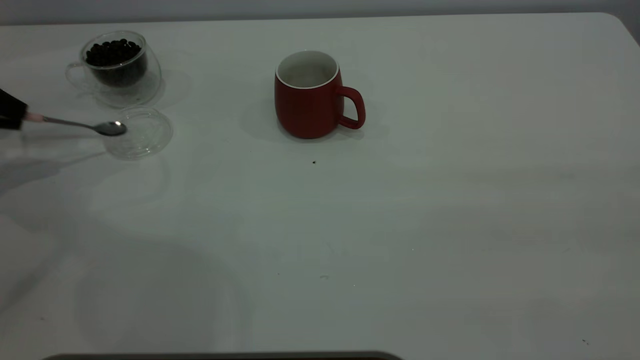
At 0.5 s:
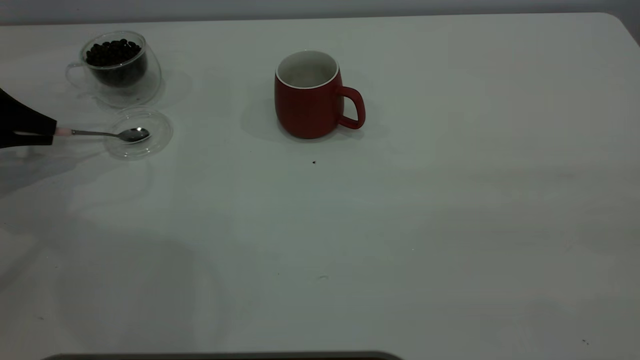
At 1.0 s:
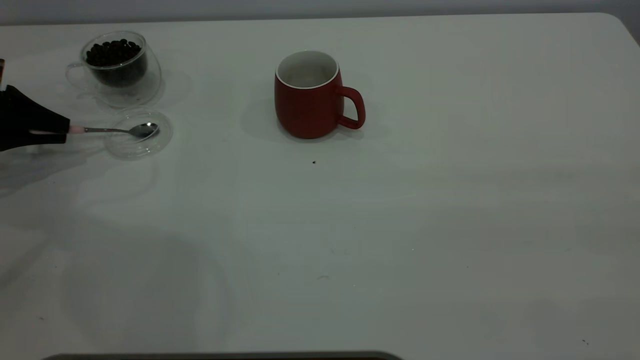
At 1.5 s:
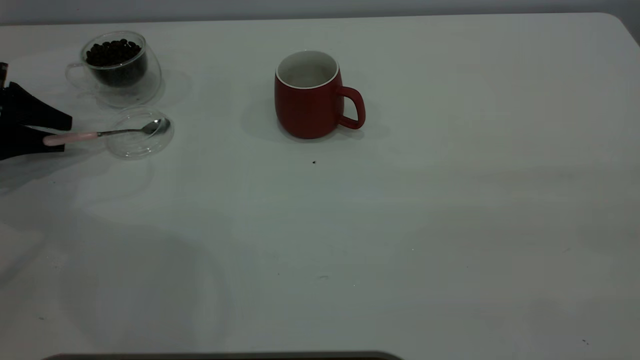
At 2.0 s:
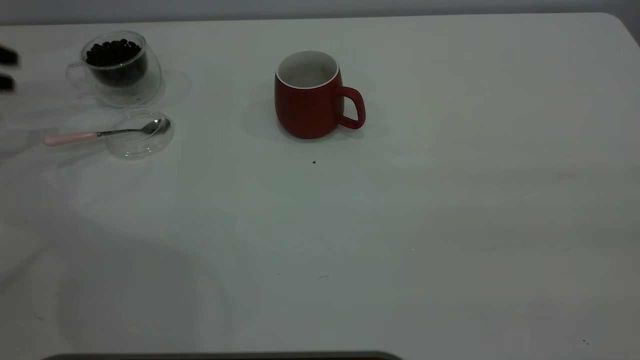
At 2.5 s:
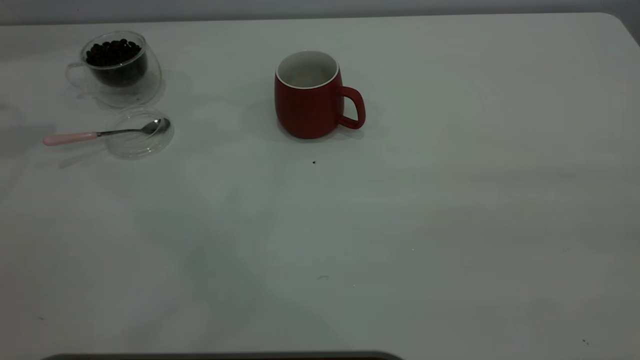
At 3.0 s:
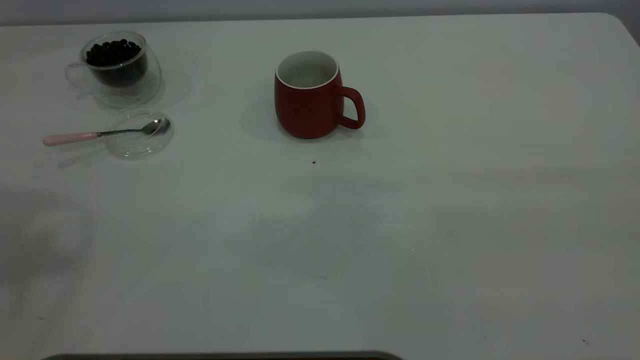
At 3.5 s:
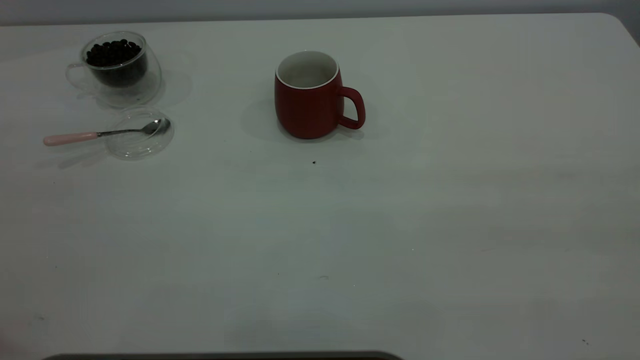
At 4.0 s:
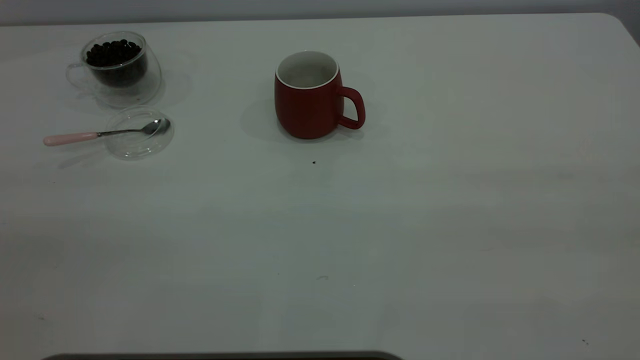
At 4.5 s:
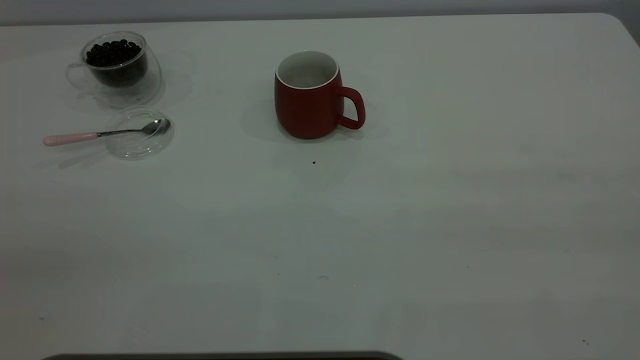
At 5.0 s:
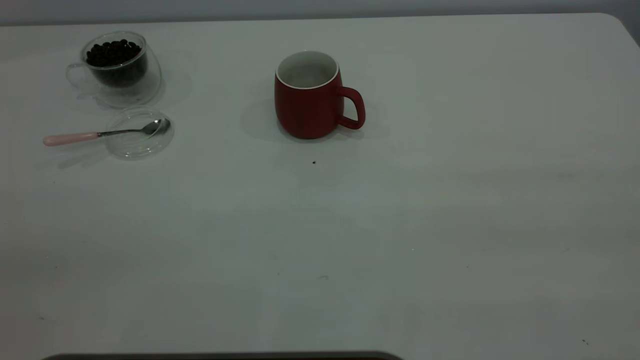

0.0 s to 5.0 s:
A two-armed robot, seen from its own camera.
Task of the whole recording: the right gripper place the red cup in the center of the table, the left gripper take the pink spoon from the cup lid and scoop out the coffee beans from the coffee cup and put them into the red cup, the left gripper put the spoon back into the cup lid.
0.0 to 2.5 s: The left gripper heads upward, covering roughly 25 cm, and opens up.

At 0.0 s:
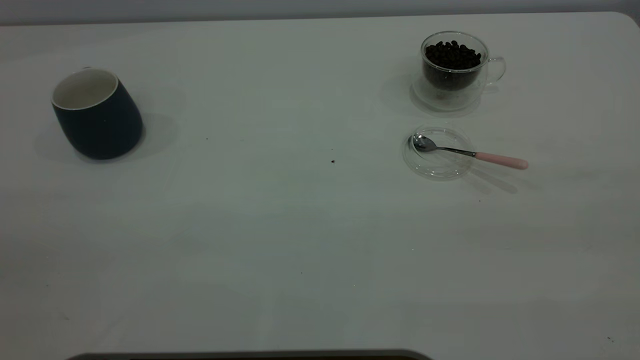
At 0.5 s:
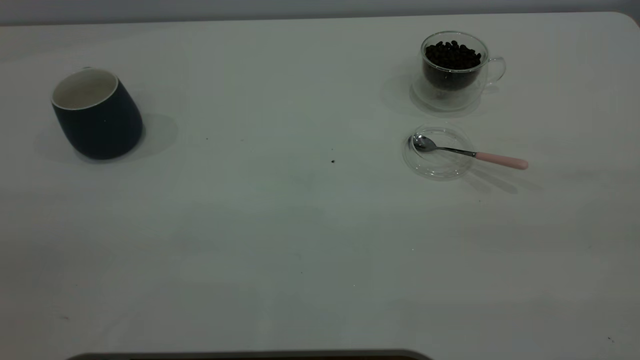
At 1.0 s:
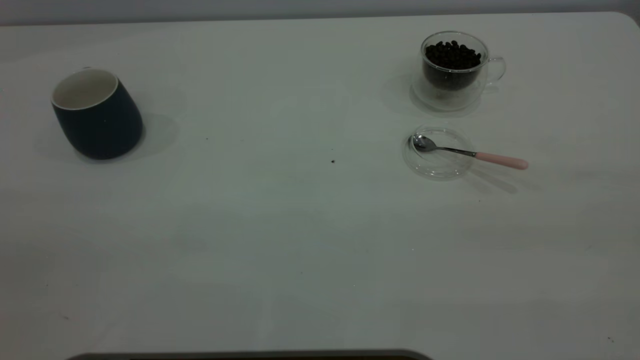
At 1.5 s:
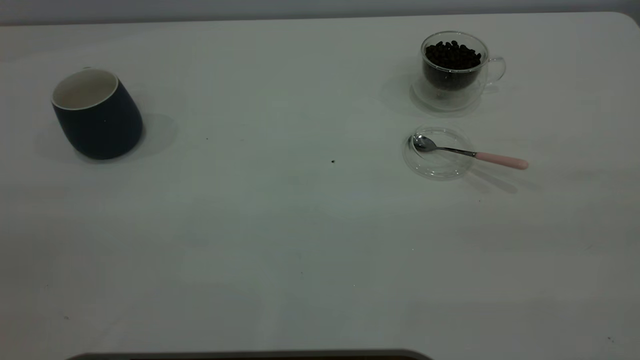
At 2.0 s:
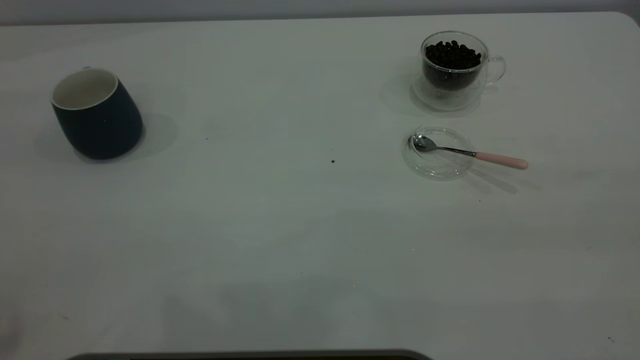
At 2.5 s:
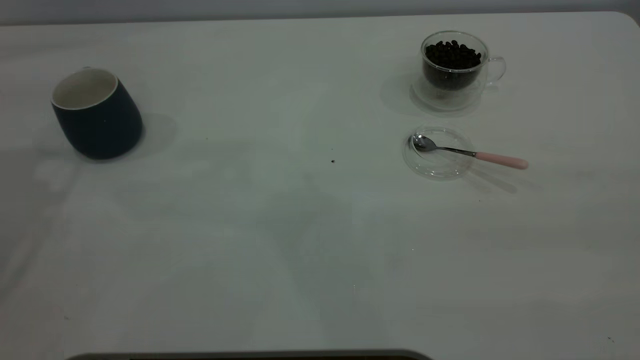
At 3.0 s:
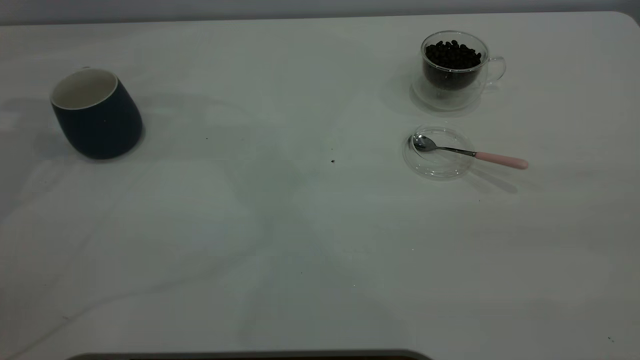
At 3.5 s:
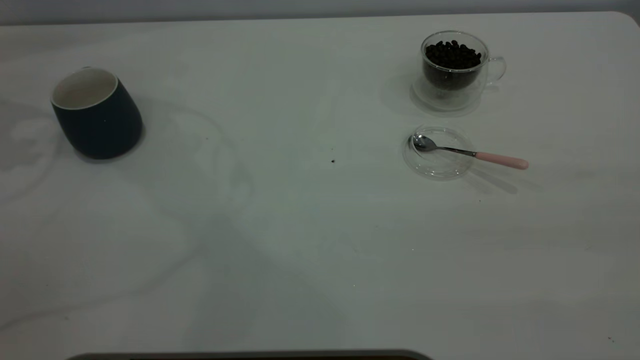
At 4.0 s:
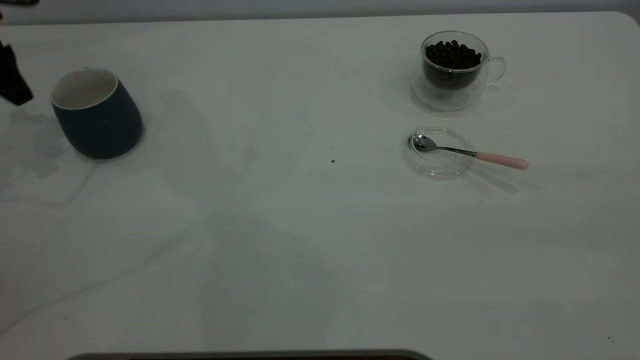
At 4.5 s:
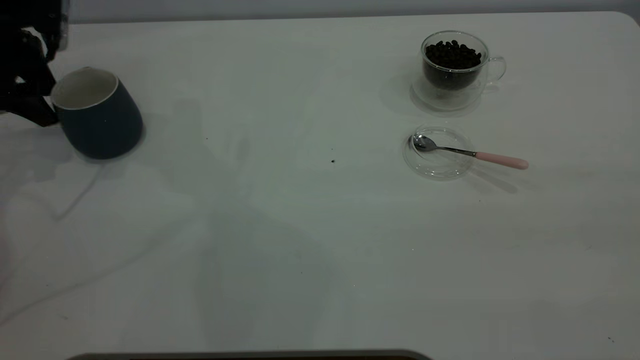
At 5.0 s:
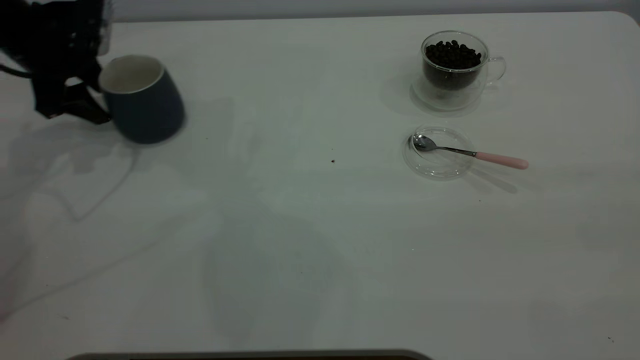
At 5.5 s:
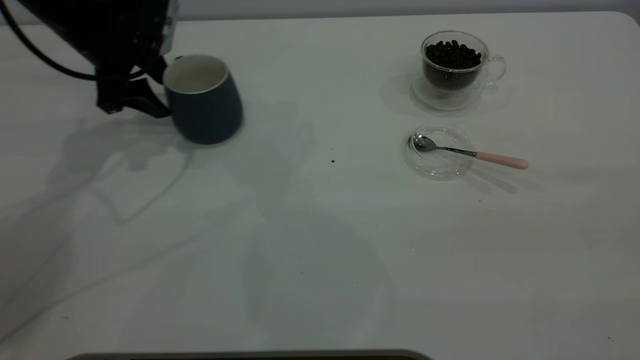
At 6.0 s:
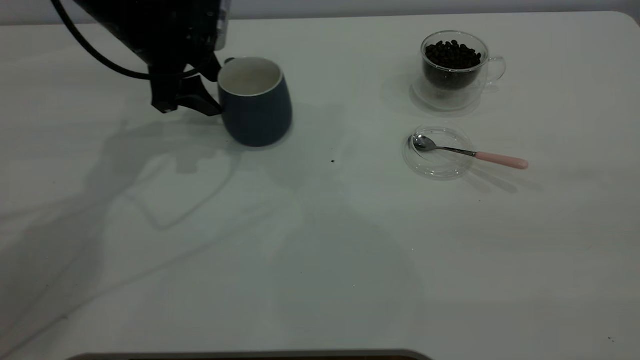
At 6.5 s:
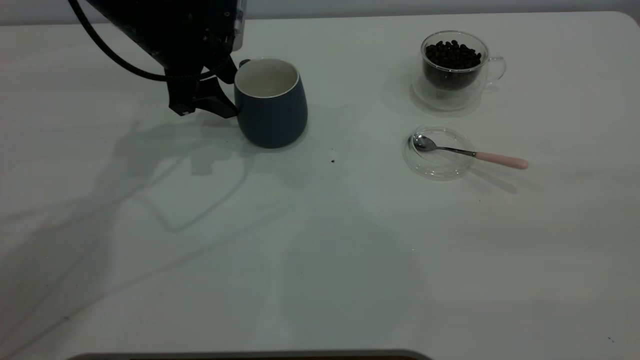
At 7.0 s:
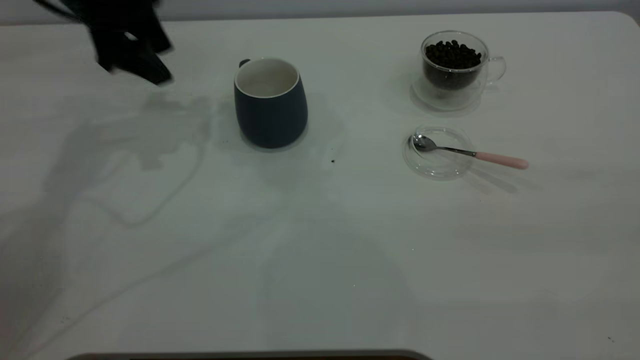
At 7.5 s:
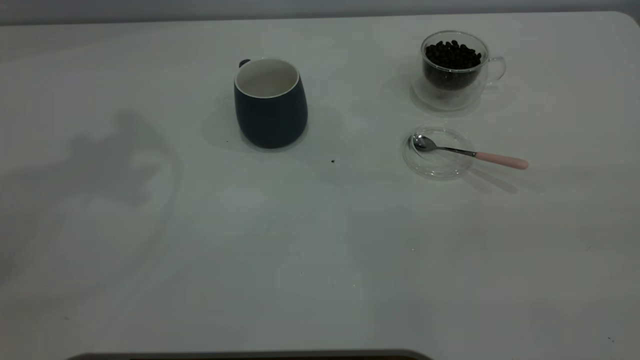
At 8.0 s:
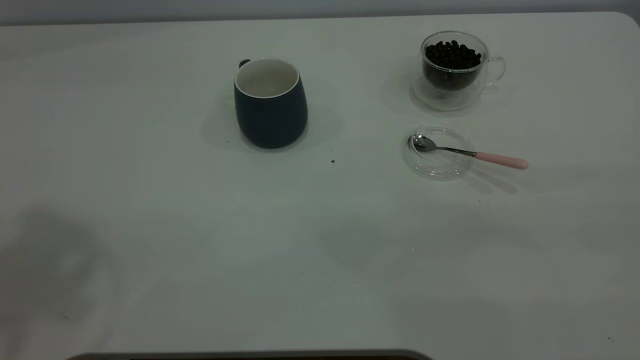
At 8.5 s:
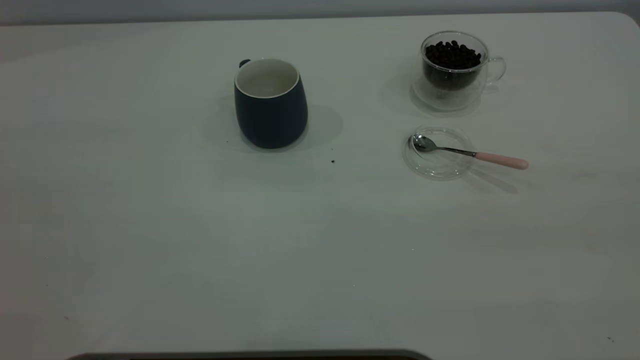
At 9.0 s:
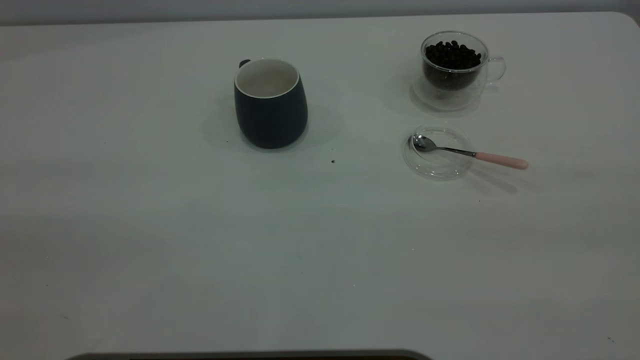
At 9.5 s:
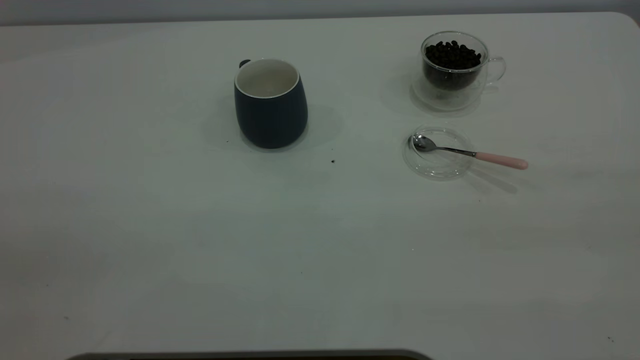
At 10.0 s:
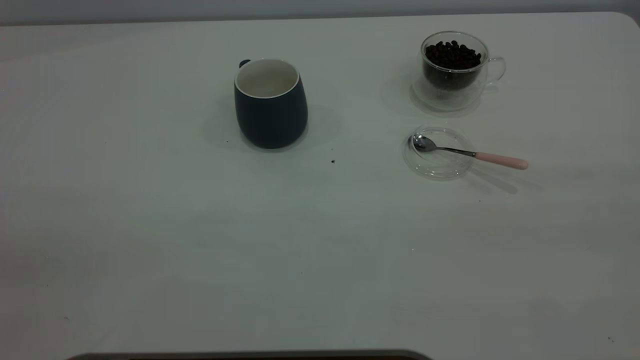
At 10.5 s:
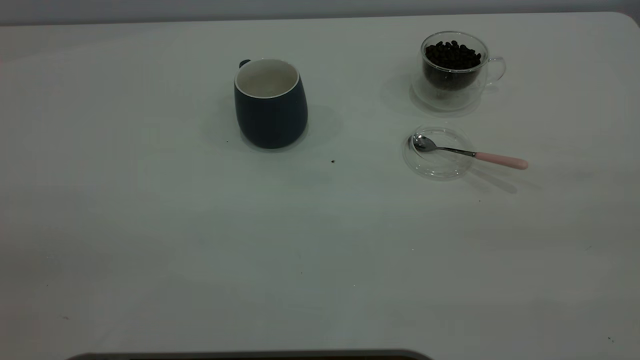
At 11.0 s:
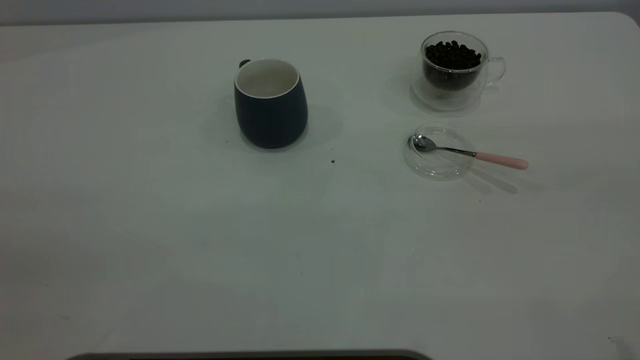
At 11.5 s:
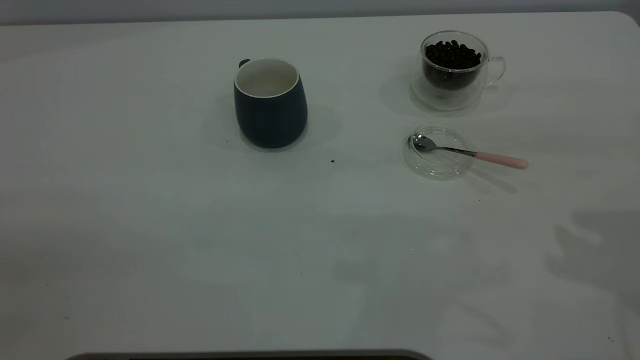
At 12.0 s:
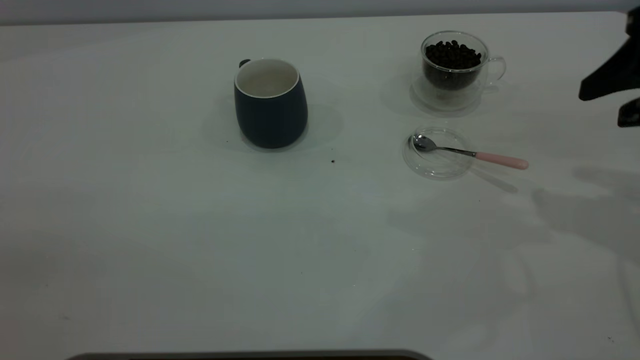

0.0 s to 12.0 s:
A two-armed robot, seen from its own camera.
Task of the whole recording: the left gripper place the grey cup in the center of the table, the right gripper take the pink spoon from the cup lid and scoop out the coffee beans from the coffee cup and put them into the grey cup, the right gripper put the spoon back into the cup lid.
Step, 0.0 to 6.5 s: Move the cup to the center of view.
2.0 to 4.0 s: The left gripper heads forward and downward, covering about 35 cm.
4.0 to 6.0 s: The left gripper moves to the right, some 20 cm.
6.0 to 8.0 s: The left gripper goes roughly 40 cm upward and backward.
10.0 to 12.0 s: The right gripper shifts roughly 30 cm forward and downward.

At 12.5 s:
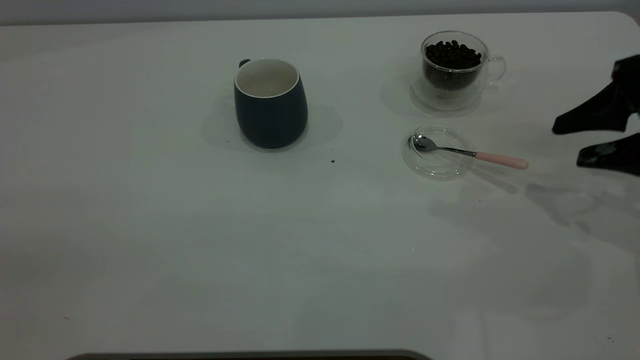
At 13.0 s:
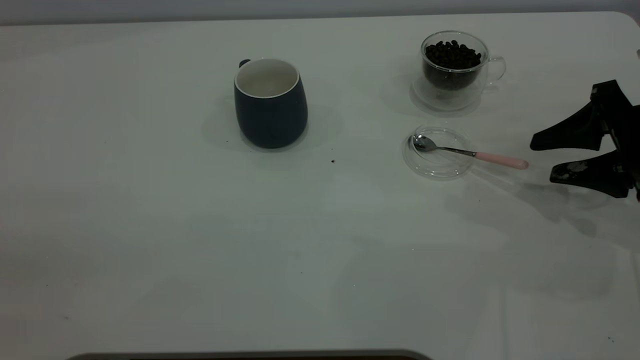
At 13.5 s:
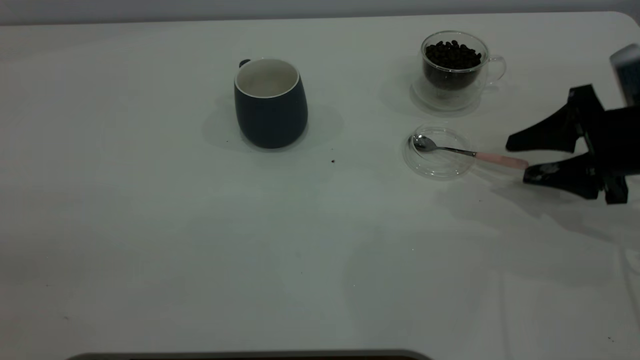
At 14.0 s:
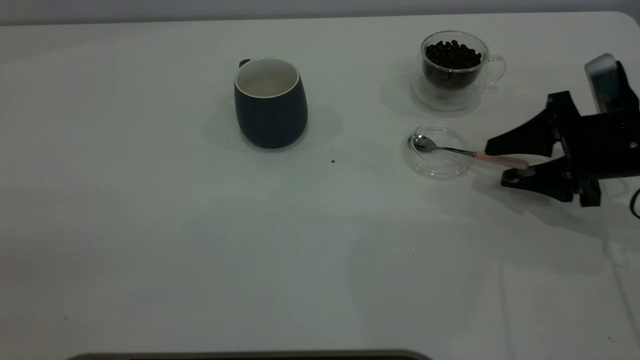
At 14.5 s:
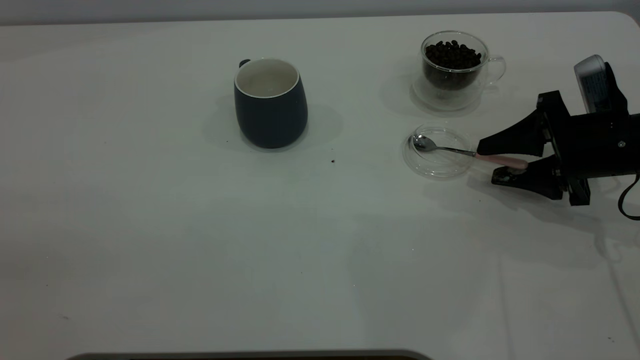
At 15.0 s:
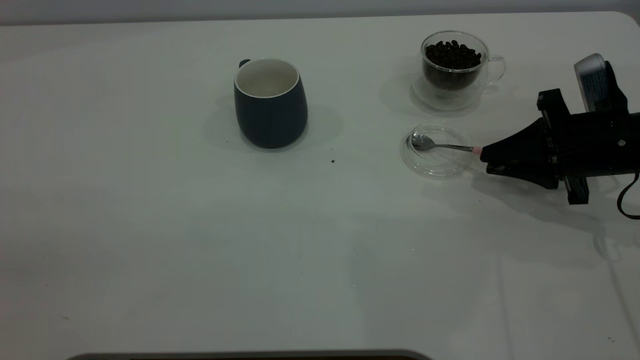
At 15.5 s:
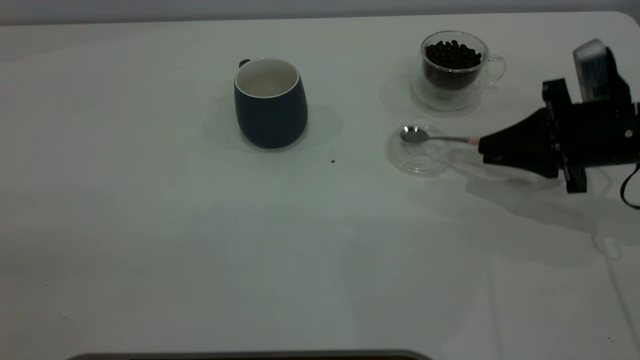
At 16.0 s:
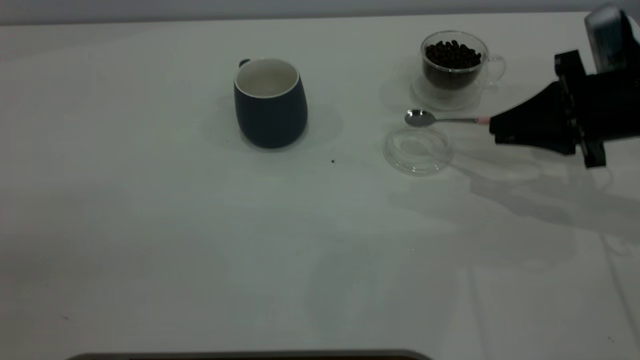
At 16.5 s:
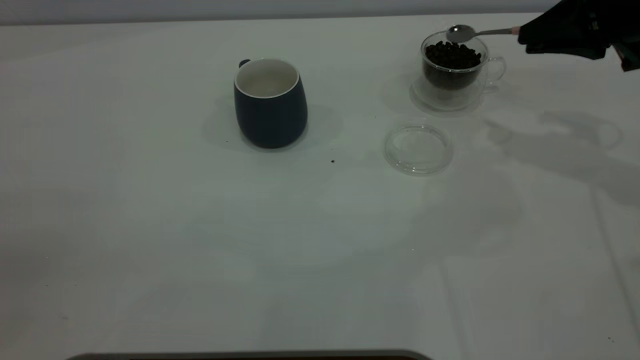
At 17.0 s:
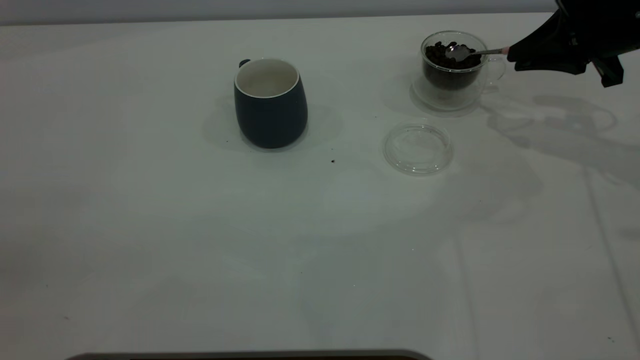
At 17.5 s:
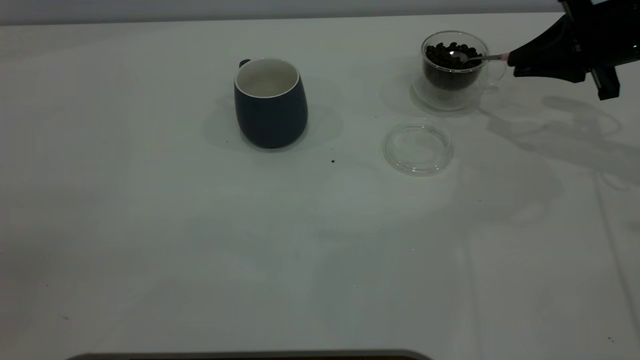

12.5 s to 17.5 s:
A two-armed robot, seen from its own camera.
Task of the whole recording: the left gripper place the grey cup in the center of the table, the right gripper take the pink spoon from the cup lid and scoop out the coffee beans from the coffee cup and put them into the grey cup, the right gripper put the spoon back into the cup lid.
Step, 12.5 to 15.5 s: Pick up the spoon.
12.5 to 15.0 s: The right gripper moves downward, roughly 5 cm, and closes.
15.0 to 17.5 s: The right gripper goes approximately 10 cm forward and upward.
